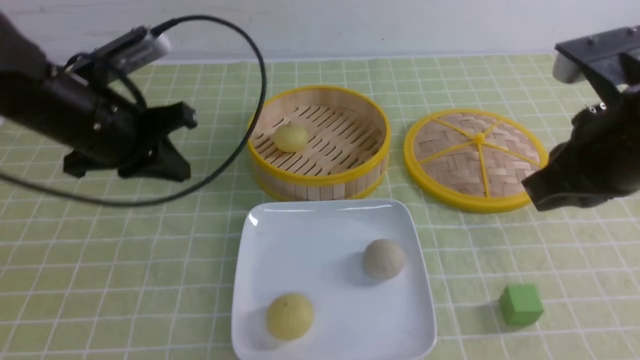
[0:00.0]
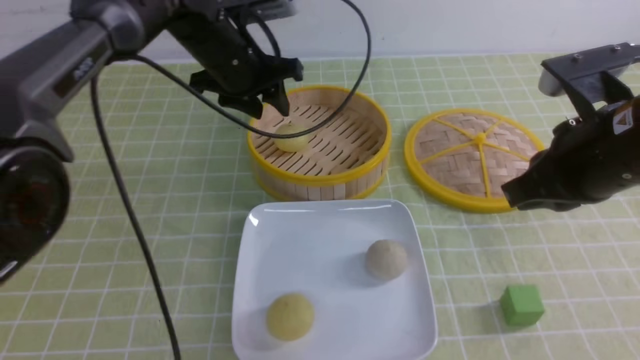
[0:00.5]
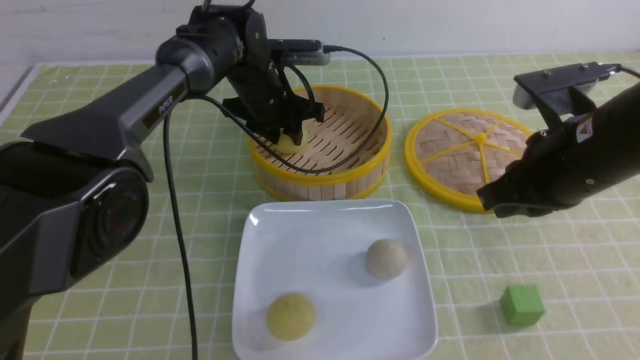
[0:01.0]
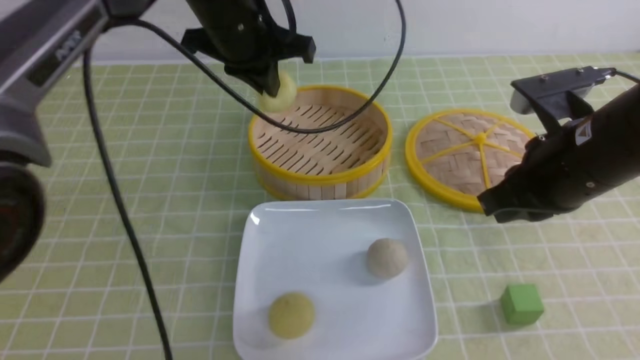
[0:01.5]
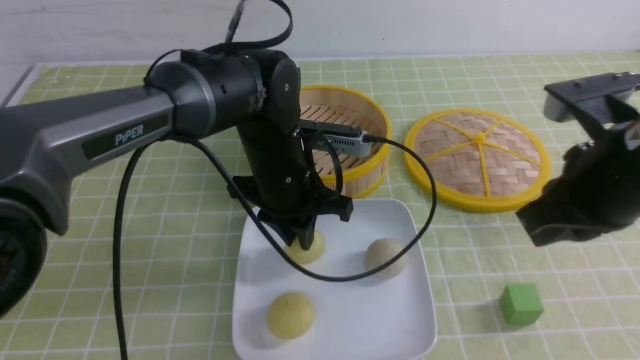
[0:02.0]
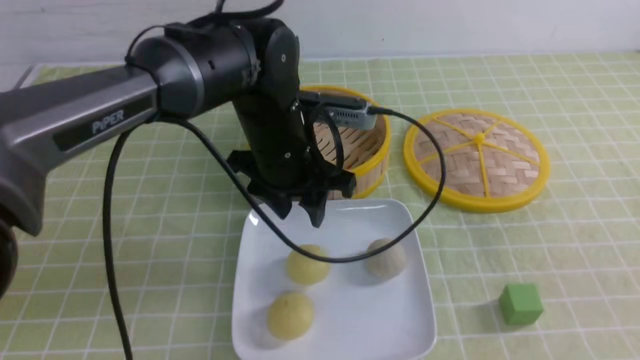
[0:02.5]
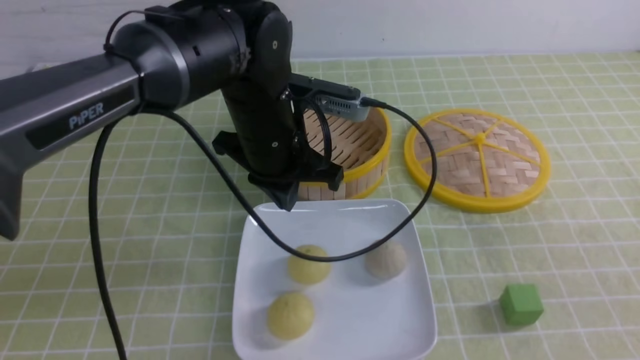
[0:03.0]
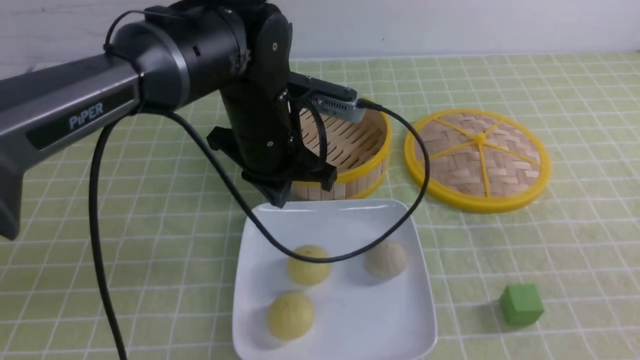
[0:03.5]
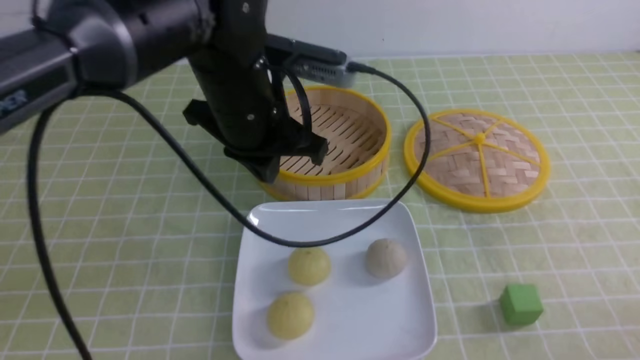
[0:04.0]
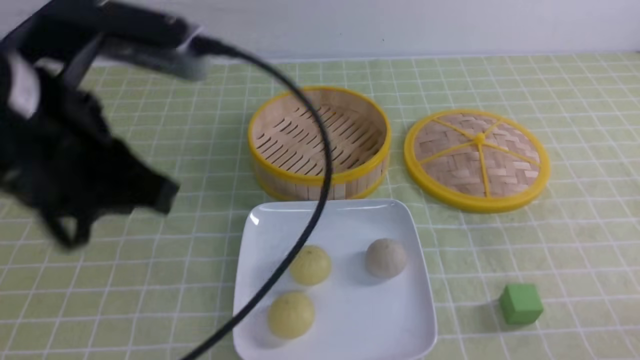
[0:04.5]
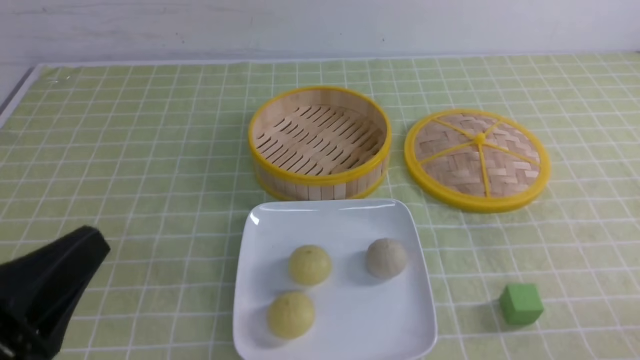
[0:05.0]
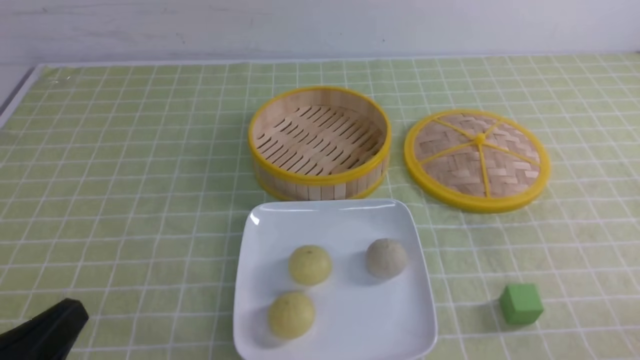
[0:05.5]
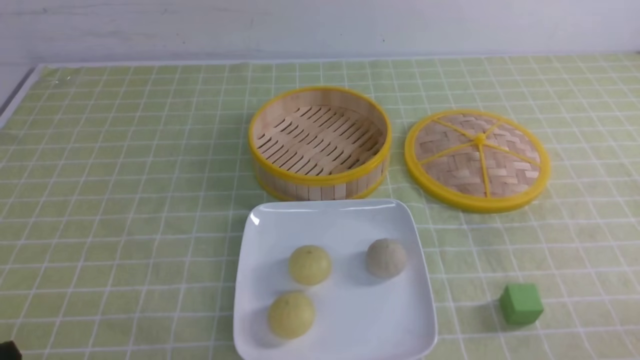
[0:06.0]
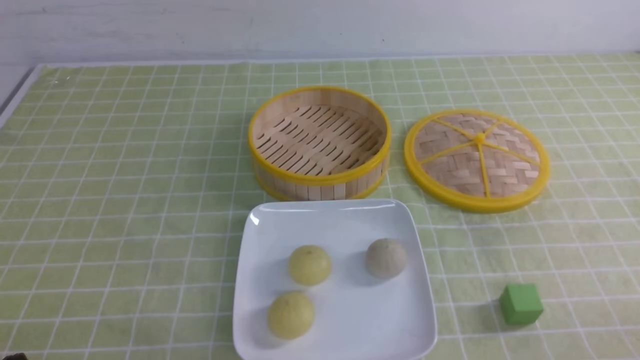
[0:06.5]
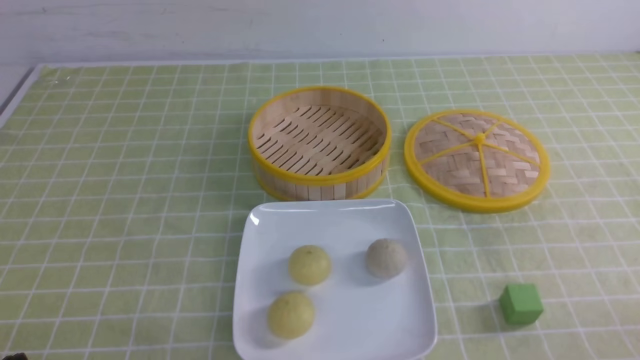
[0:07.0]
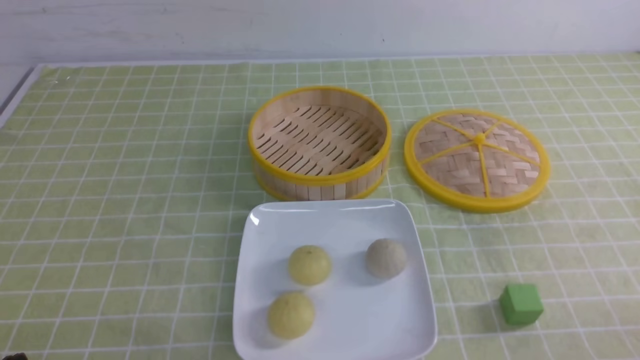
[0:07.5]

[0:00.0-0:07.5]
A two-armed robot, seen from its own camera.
Step, 0:00.0 to 0:01.0: use the left arm to grab the steamed stuffed bun that is closest to it.
Step, 0:01.5 to 0:02.0: use the left arm to put the steamed stuffed bun into the plate.
0:00.0 to 0:02.0: The left gripper travels to the right and downward by approximately 20 cm, and opens up.
0:02.0 to 0:04.0: The left gripper travels upward by roughly 10 cm, and closes its fingers. Meanwhile the right gripper heads backward, downward and to the right, covering roughly 25 cm.
0:04.0 to 0:05.5: The left gripper is displaced backward and to the left by approximately 30 cm.
0:05.5 to 0:07.5: The left gripper travels downward by approximately 5 cm.
